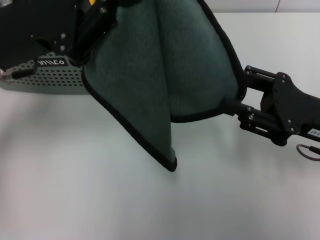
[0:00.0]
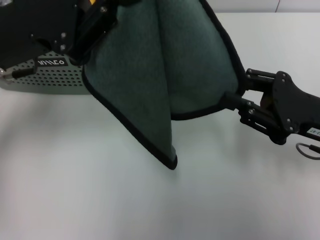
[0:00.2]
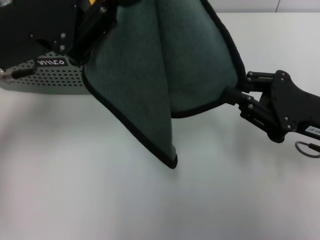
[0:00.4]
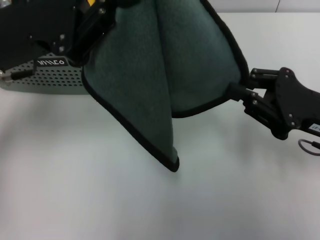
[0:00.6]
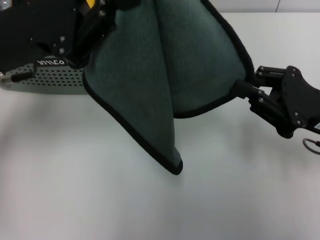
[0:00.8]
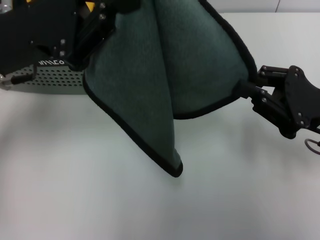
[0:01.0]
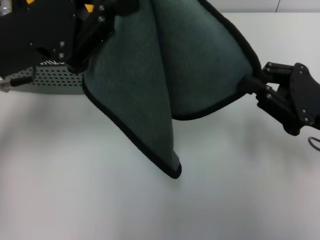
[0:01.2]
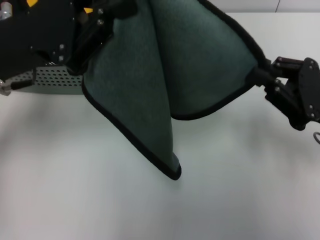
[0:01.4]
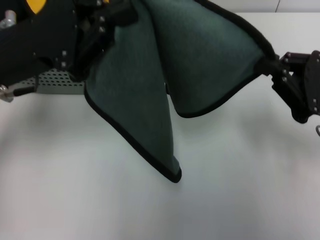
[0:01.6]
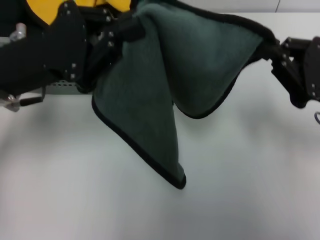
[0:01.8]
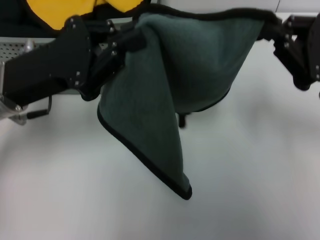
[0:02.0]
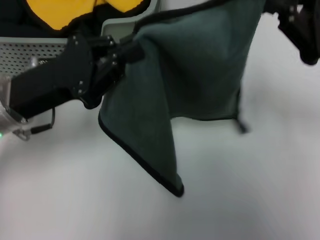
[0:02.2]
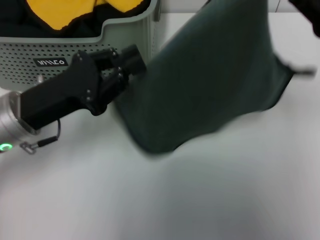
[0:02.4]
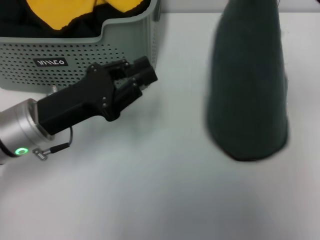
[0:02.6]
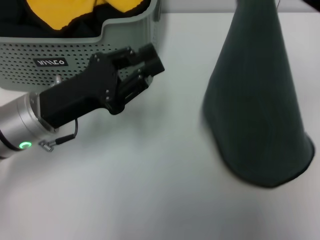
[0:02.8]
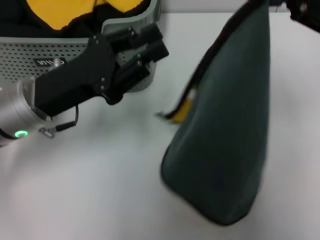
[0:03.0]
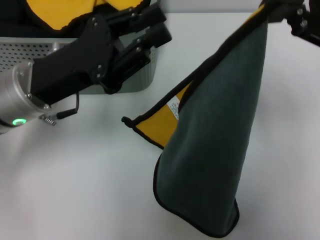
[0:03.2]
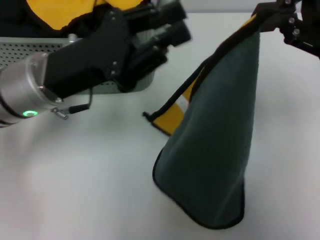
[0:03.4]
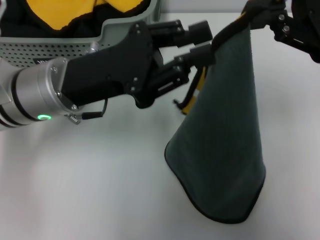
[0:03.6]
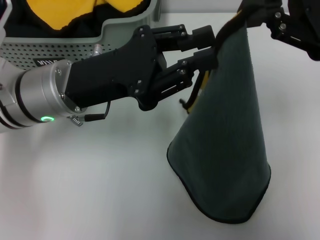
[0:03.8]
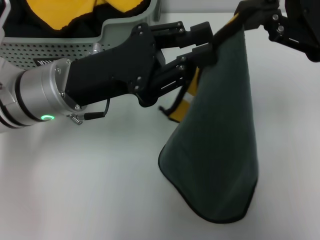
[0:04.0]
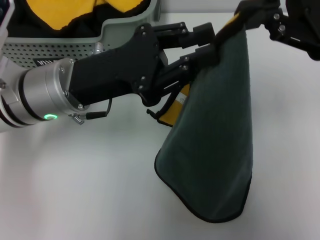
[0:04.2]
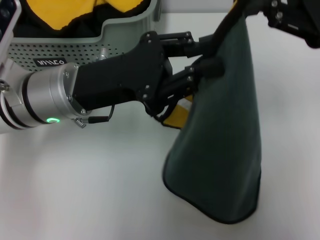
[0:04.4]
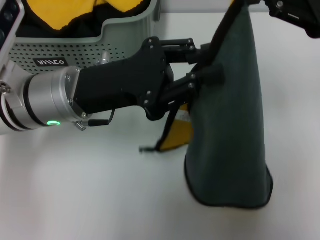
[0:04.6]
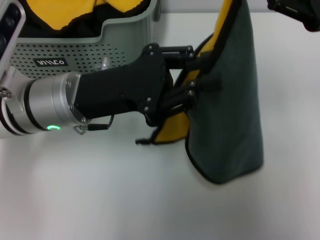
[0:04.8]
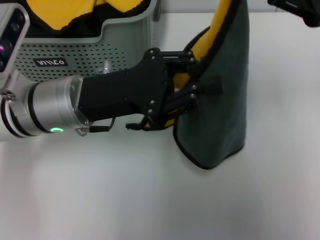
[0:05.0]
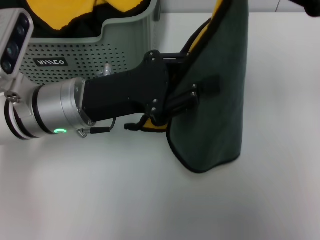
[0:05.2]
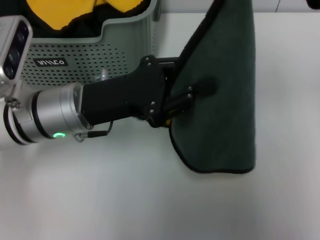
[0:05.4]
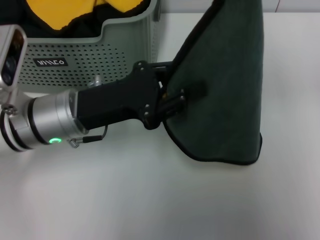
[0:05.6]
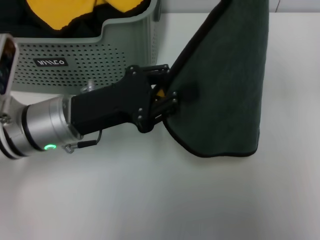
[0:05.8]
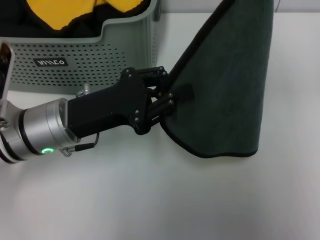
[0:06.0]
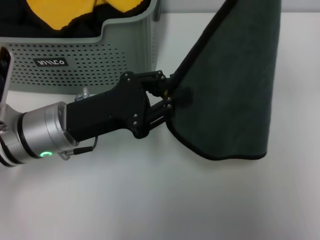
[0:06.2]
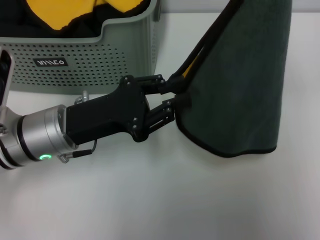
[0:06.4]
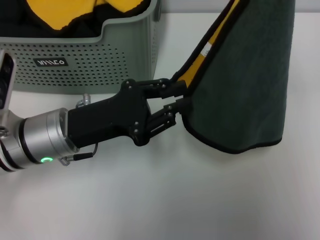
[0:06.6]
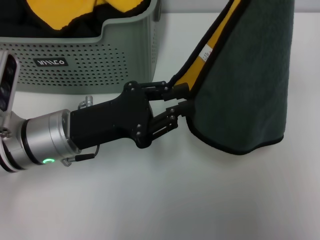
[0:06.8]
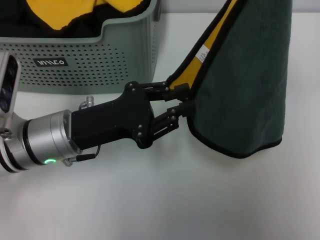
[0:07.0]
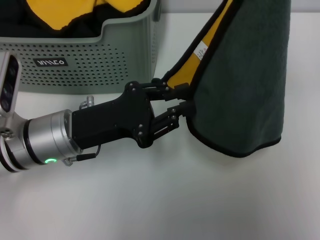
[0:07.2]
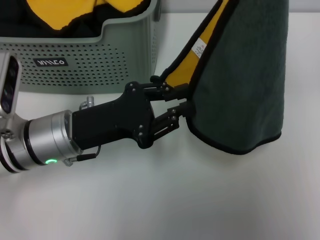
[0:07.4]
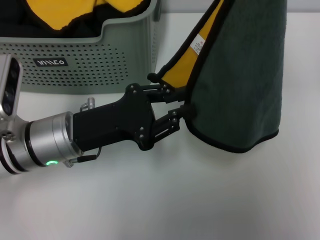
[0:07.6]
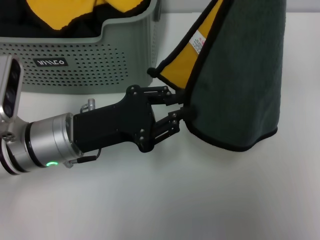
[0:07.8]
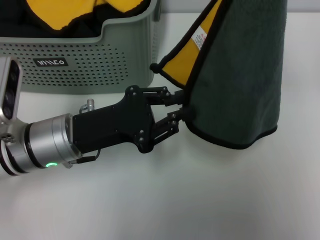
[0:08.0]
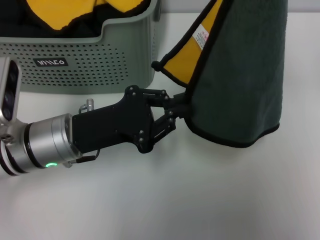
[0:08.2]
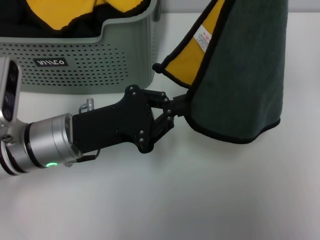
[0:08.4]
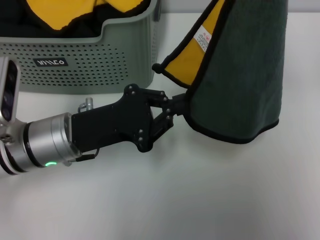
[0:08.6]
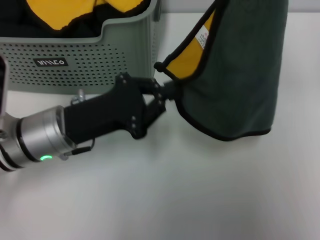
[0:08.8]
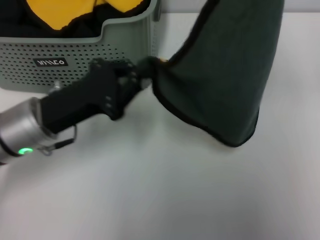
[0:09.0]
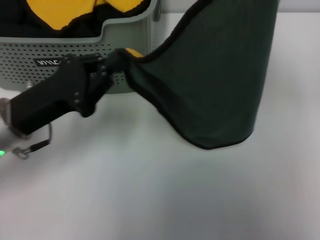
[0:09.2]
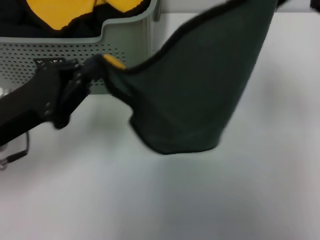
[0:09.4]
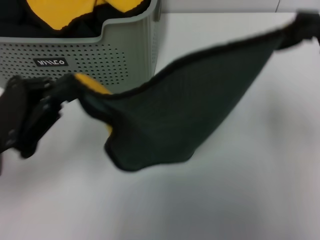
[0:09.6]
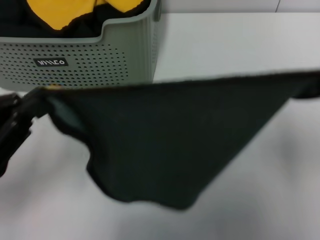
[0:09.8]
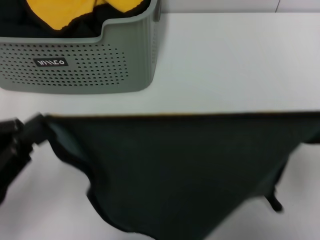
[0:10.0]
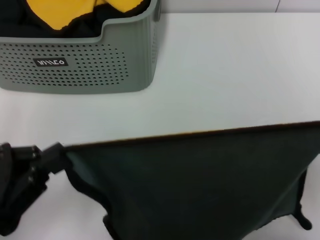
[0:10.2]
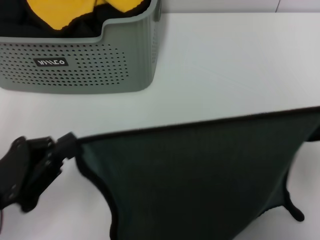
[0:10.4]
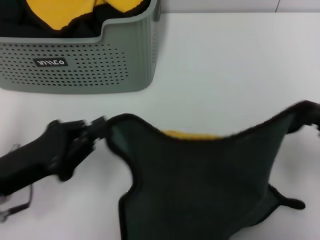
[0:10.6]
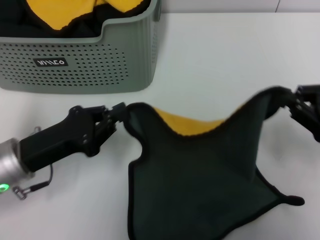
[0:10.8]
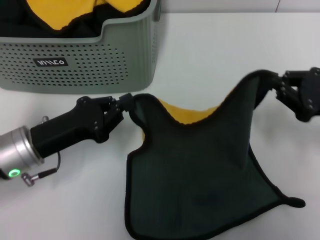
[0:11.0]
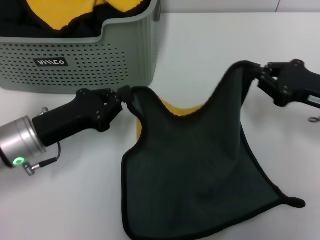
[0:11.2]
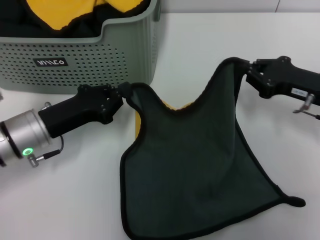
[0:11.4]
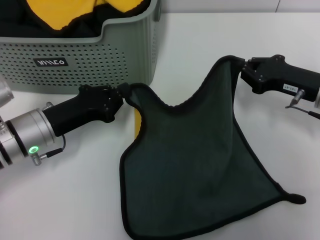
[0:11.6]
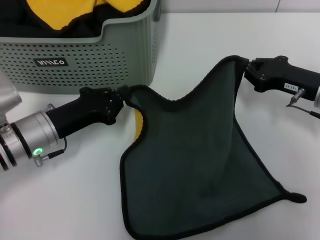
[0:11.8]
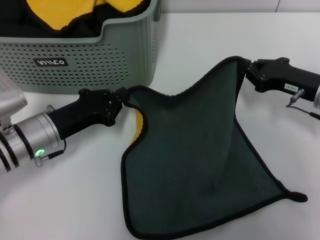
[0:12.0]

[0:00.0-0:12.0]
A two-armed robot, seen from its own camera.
Task of the whole recording: pick up the towel from the storage box and lay it flat on the table.
0:00.0 to 0:01.6: The right gripper closes its fingers.
0:01.6 to 0:03.0: The left gripper shifts about 5 cm downward; the right gripper heads upward and forward, covering approximately 15 cm.
0:03.0 to 0:04.4: The left gripper moves some 5 cm.
0:04.4 to 0:06.0: The left gripper moves approximately 5 cm.
0:09.0 to 0:10.4: The right gripper goes approximately 20 cm downward and backward, while the left gripper heads backward and to the left, covering approximately 15 cm.
0:10.4 to 0:12.0: The left gripper is displaced forward and downward by approximately 15 cm, while the right gripper moves forward, downward and to the left, roughly 20 cm.

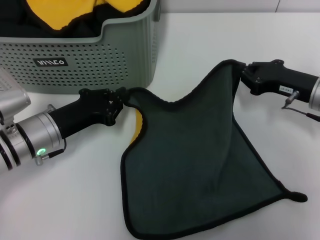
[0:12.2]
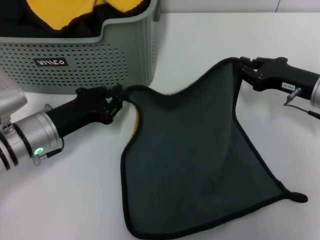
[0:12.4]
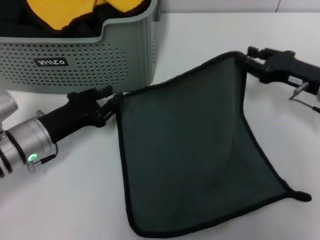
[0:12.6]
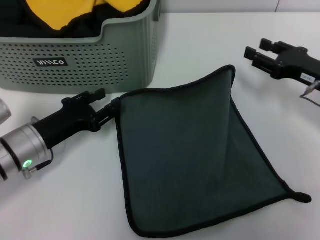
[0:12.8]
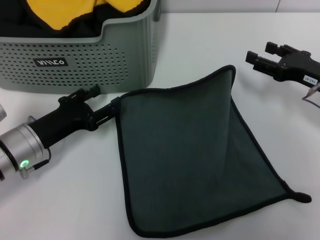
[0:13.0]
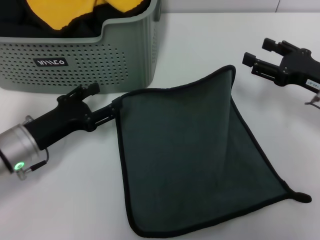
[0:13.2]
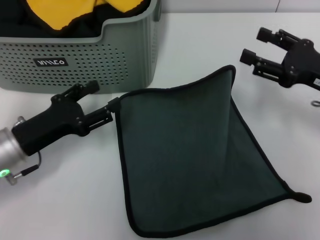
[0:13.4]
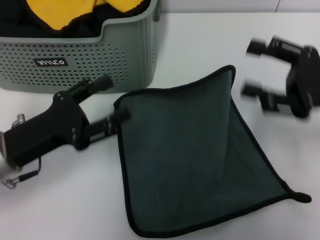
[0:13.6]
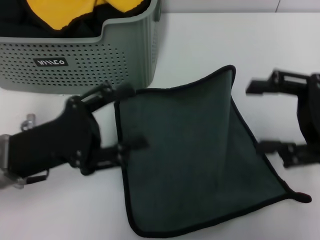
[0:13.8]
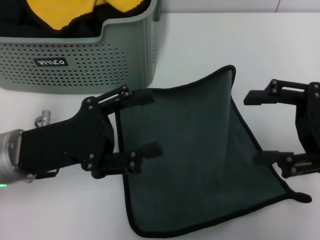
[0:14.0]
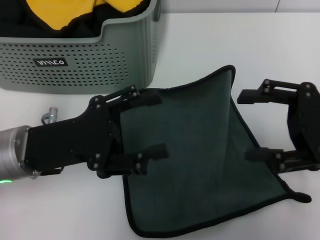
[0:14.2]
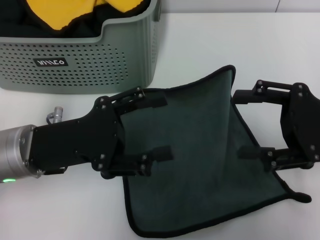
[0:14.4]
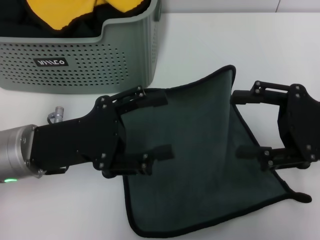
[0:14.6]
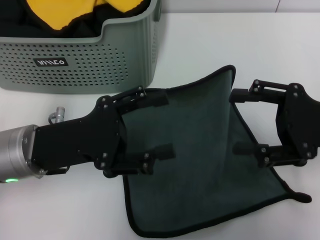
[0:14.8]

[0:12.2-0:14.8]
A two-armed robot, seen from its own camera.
Task of the whole recording: pick up the towel from the storage box and lay it flat on the table.
0:12.2 to 0:13.4: The right gripper shifts by roughly 5 cm, and opens; the left gripper ends up approximately 5 cm from where it was, and opens up.
0:13.4 to 0:14.8: The left gripper shifts some 10 cm upward and to the right; the right gripper ends up approximately 5 cm from where it was.
